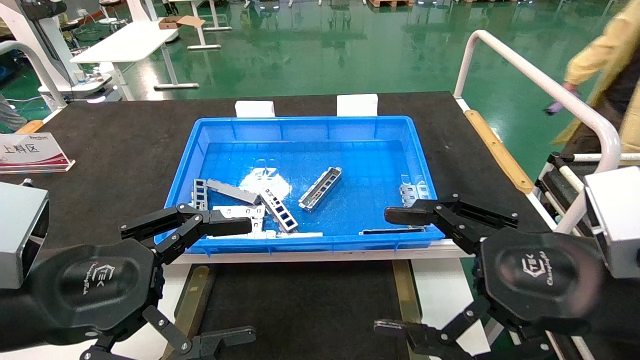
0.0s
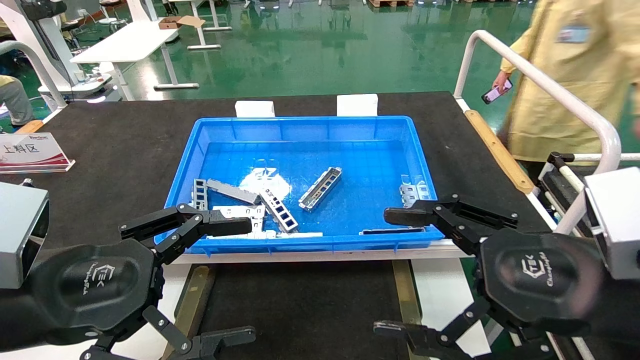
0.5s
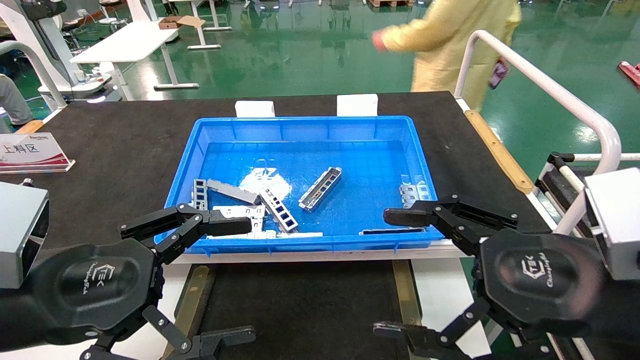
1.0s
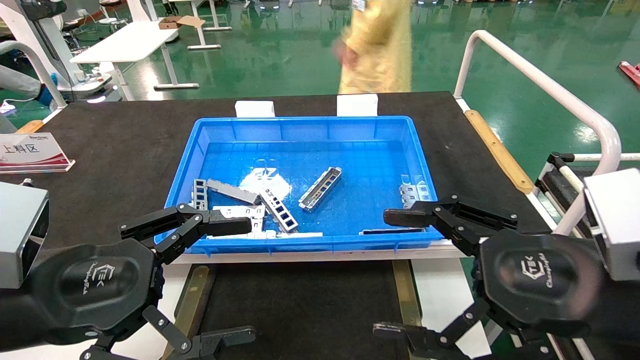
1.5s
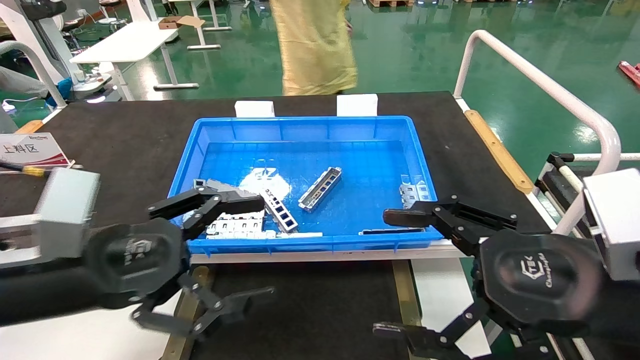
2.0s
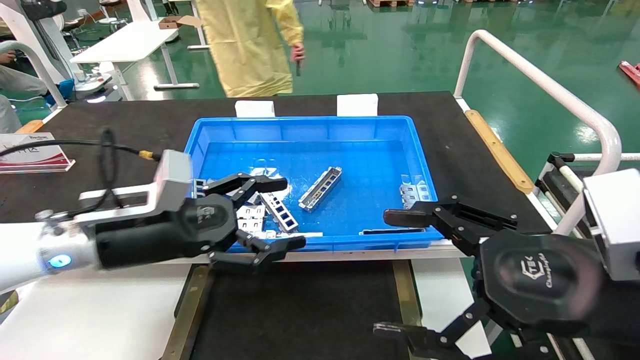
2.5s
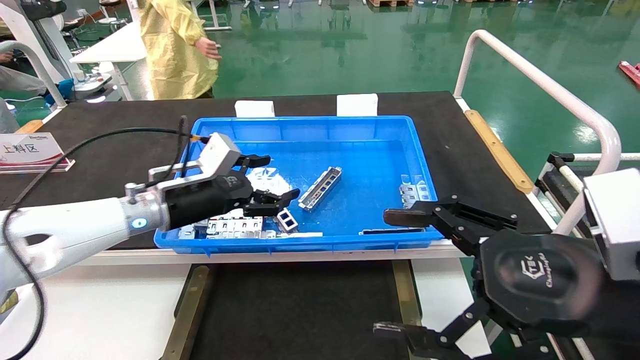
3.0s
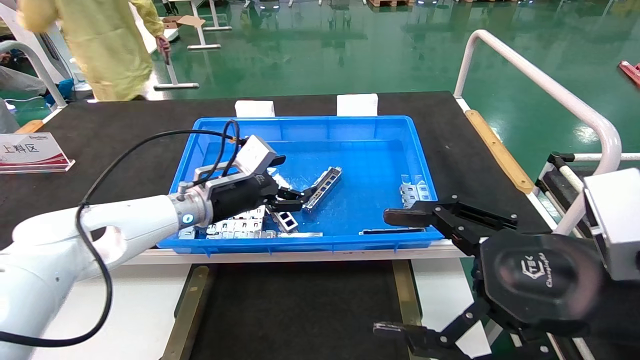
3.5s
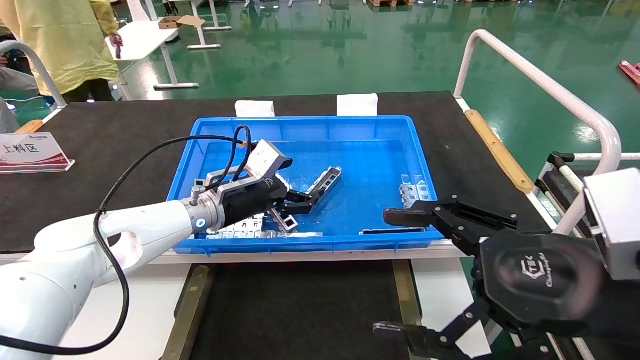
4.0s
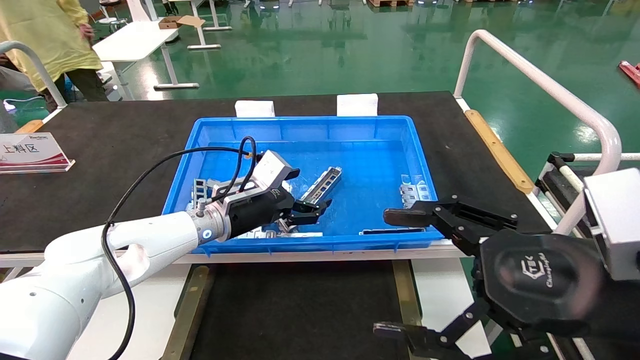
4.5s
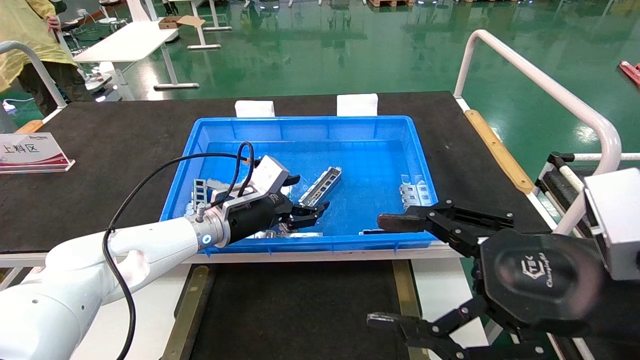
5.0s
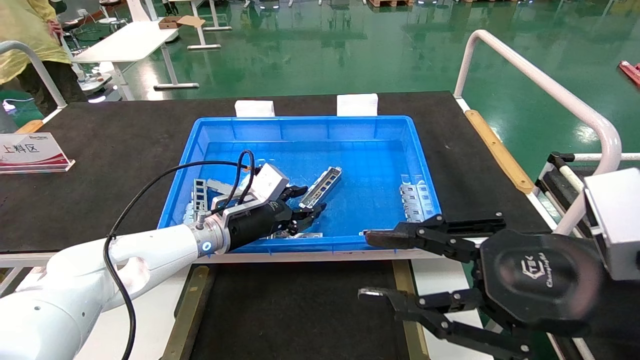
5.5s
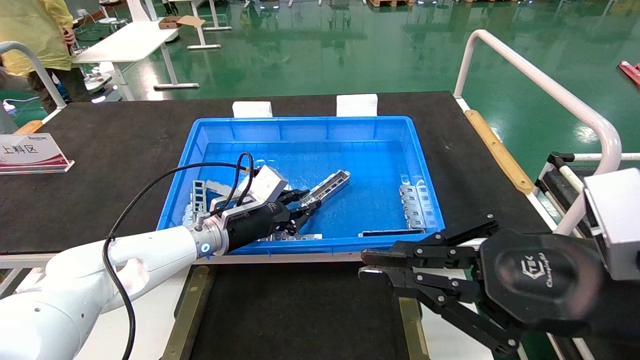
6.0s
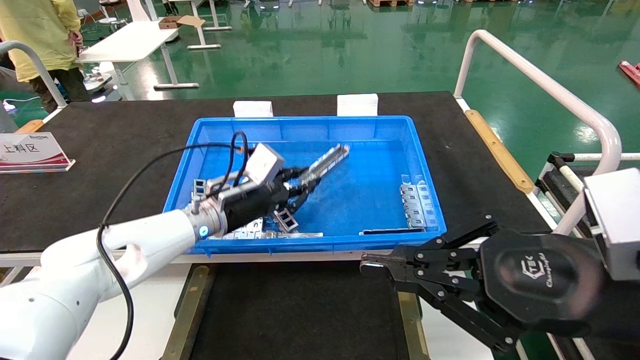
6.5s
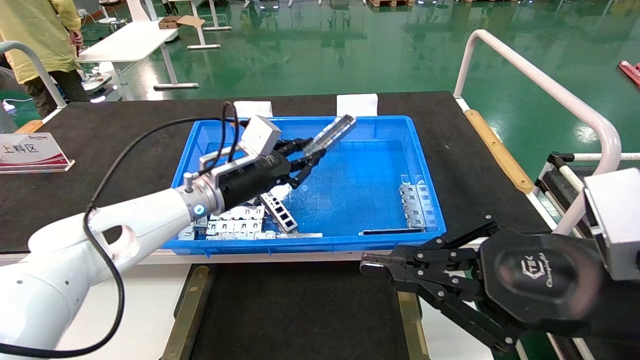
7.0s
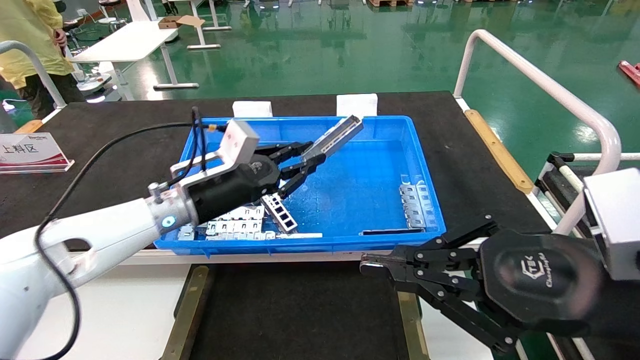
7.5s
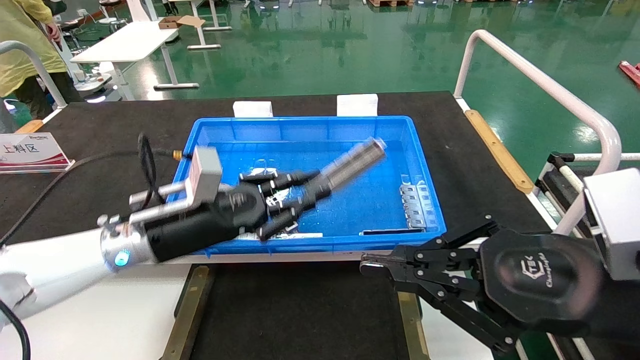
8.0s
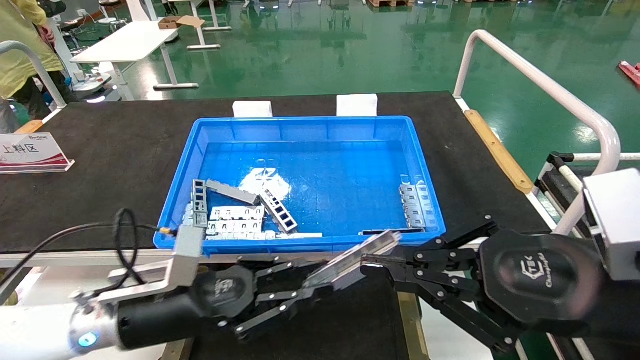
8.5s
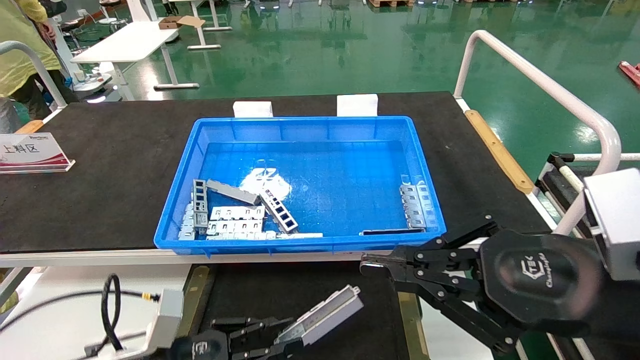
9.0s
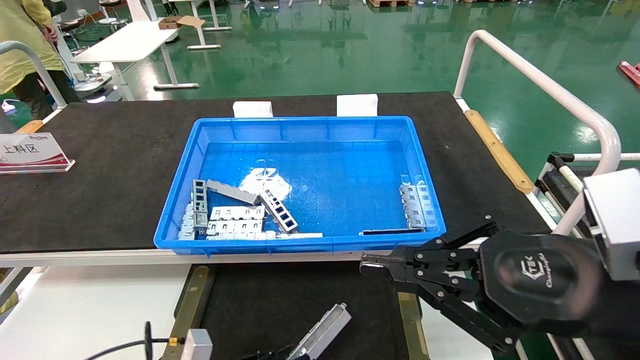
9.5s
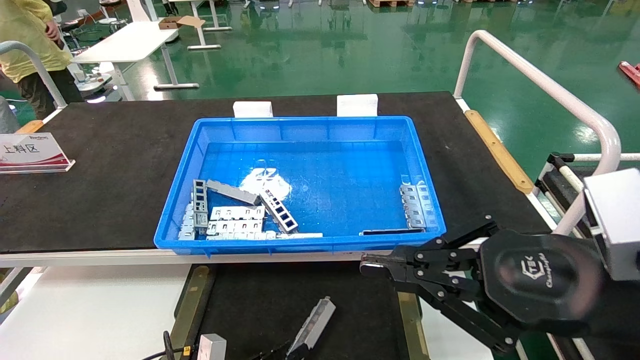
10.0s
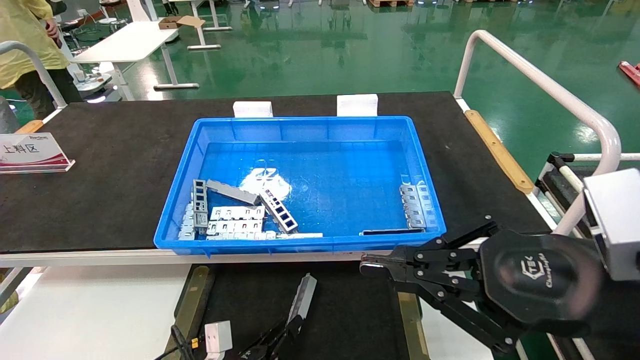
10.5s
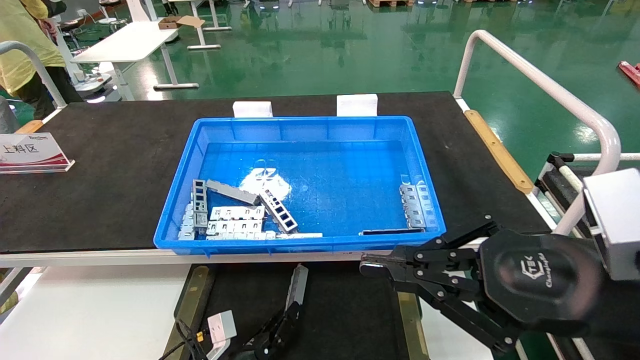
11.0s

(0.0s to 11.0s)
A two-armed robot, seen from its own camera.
Task of the whole recording: Grasp the part with one hand and place it on the black container.
Step, 2.0s - 5.5s: Pick up the front USB bracket from the feeding area.
2.0s - 3.5s: The left gripper travels forward by some 25 cm.
3.5s - 5.5s: The right gripper closes up. The left gripper shifts roughly 5 cm downward, and closes its fingers.
5.5s - 7.5s: The right gripper closes its fingers. Meanwhile the left gripper shifts some 5 cm upward, and closes.
7.5s - 9.0s: The left gripper goes about 25 cm downward and backward.
9.0s - 11.0s: The left gripper shifts about 20 cm downward, to the right and forward.

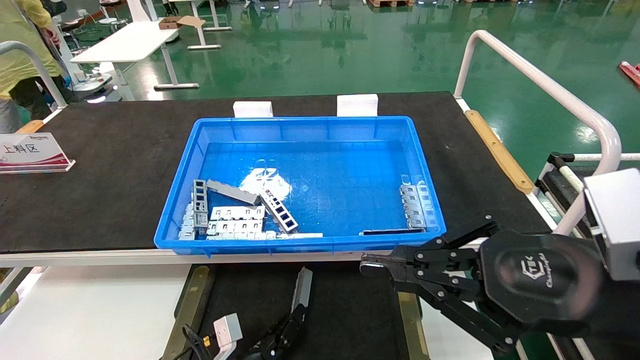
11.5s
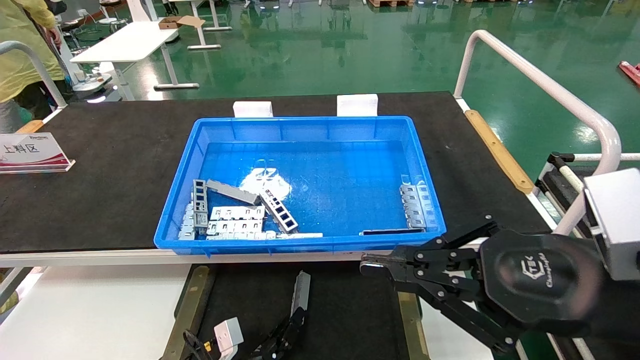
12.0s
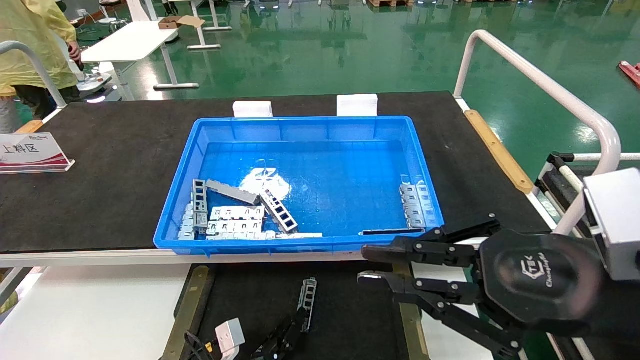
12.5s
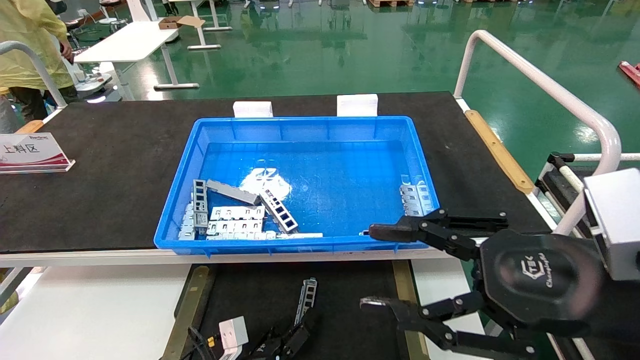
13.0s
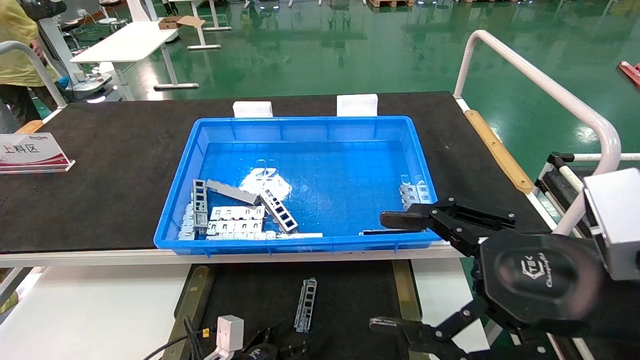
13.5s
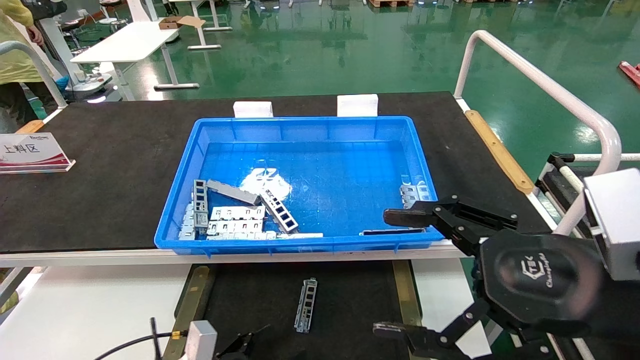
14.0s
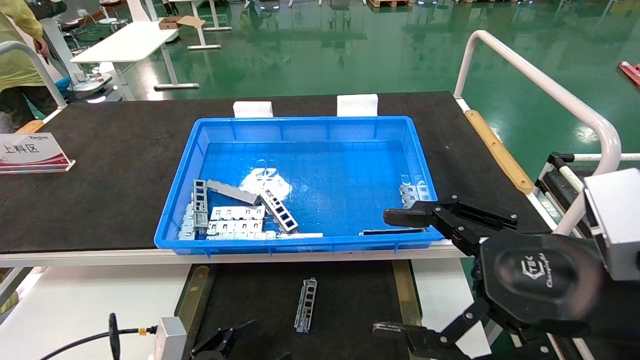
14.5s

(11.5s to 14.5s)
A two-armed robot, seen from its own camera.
Task of the whole recording: Grasp the part with one hand and place it on the black container.
11.5s - 13.0s: The right gripper opens. The left gripper opens.
13.0s - 14.5s: The right gripper opens its fingers. The left gripper travels upward, to the left and backward by approximately 15 cm, and opens its fingers.

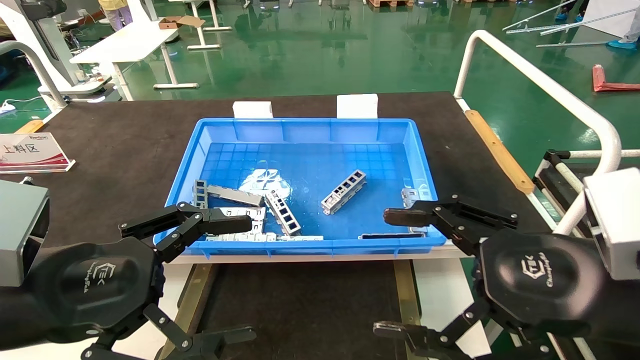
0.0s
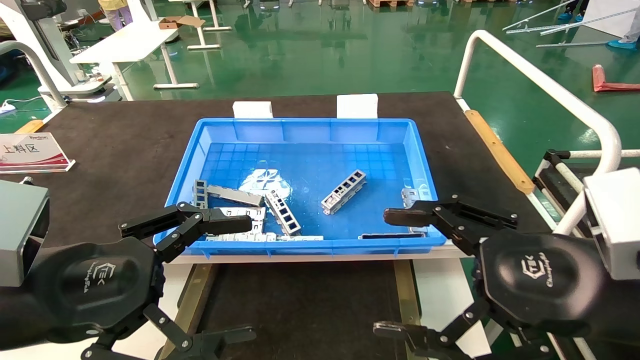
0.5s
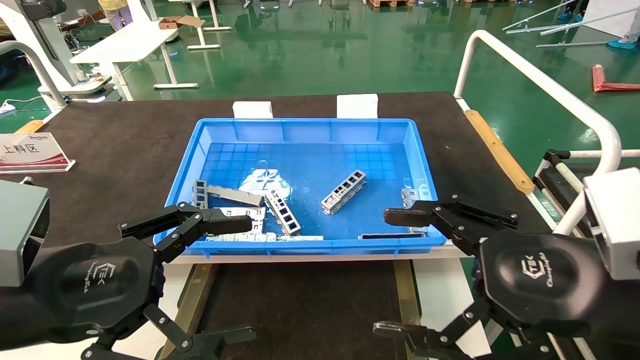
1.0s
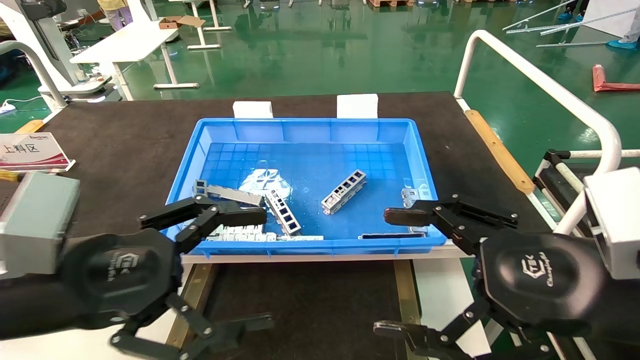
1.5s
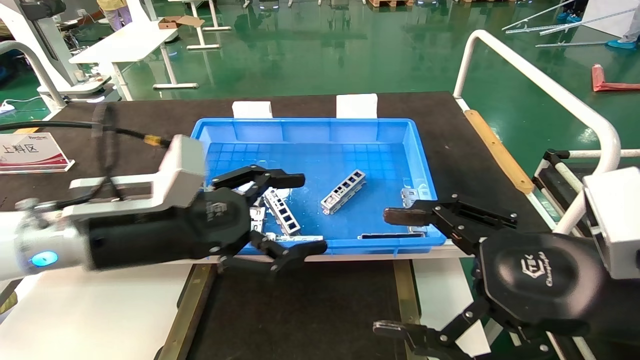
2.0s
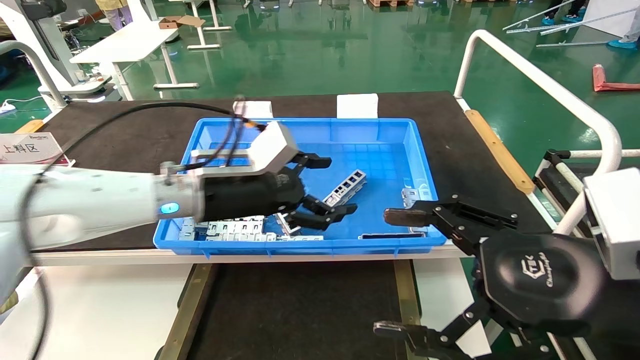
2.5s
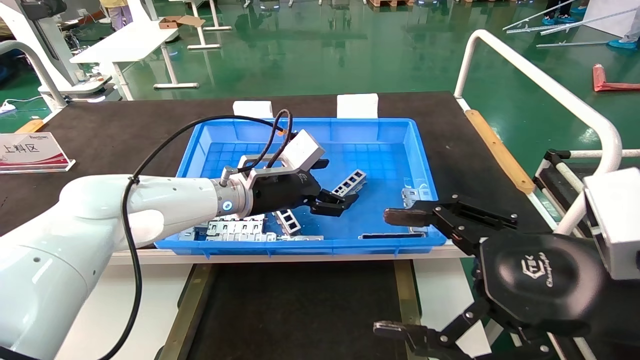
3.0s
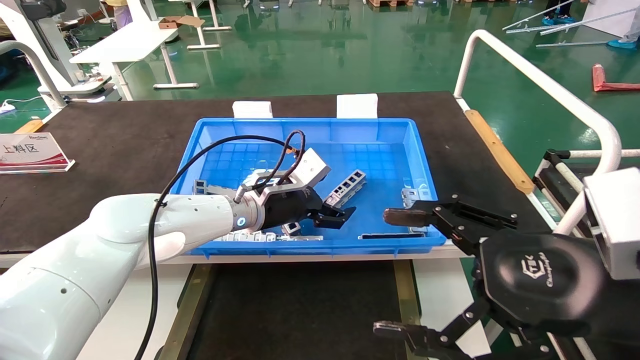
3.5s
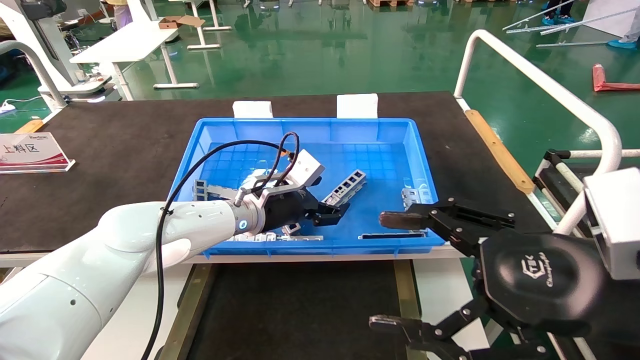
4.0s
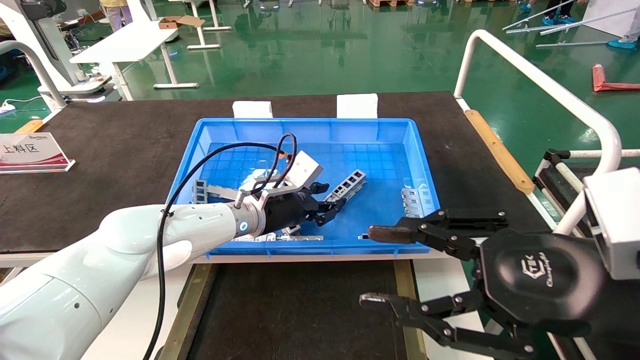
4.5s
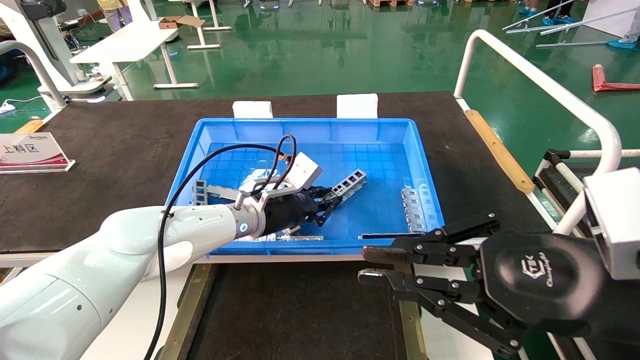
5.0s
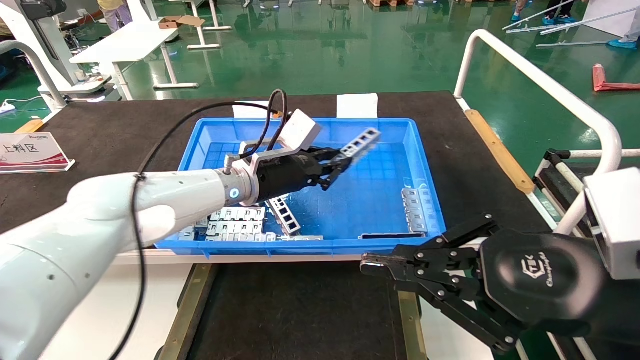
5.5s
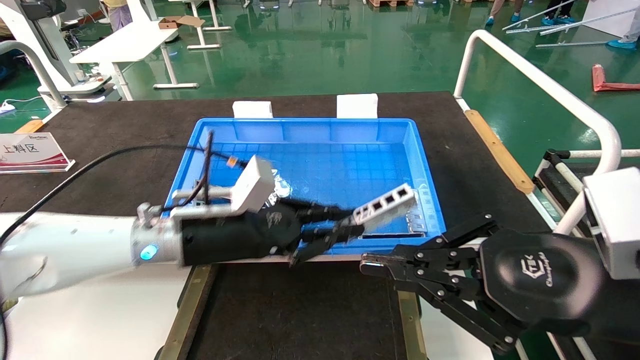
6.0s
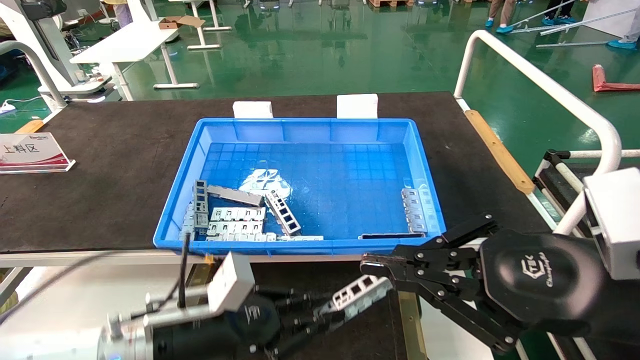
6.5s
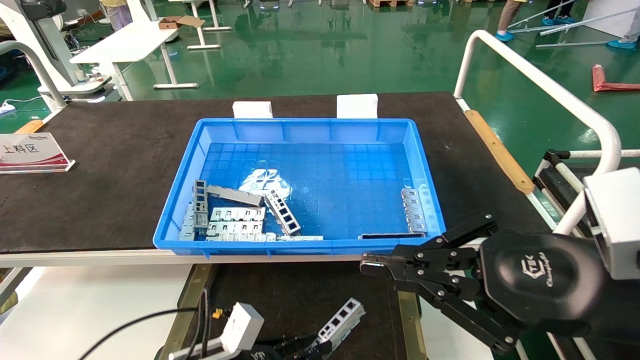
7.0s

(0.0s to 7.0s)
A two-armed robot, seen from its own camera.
Task of the whole recording: Grasp the part with one hand and place it on the black container.
Step, 2.0s - 5.0s: Pick up the front USB bracket from the feeding area.
0.0s - 2.0s: The left gripper shifts roughly 10 cm forward and to the right.
2.0s - 3.5s: The left gripper goes some 20 cm forward and to the right.
3.5s - 5.0s: The right gripper closes, while the left gripper closes its fingers.
5.0s - 7.0s: The left gripper travels downward and backward by approximately 25 cm.
